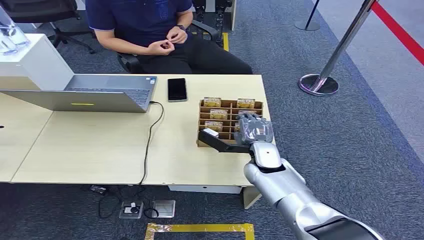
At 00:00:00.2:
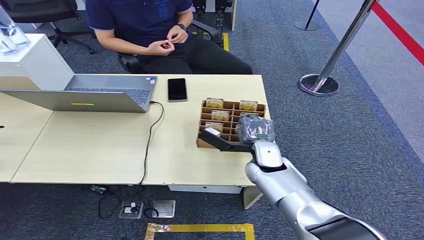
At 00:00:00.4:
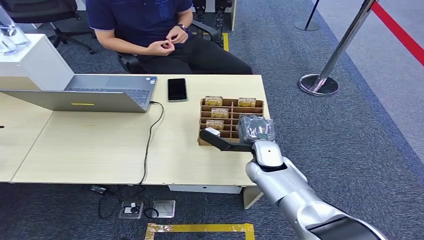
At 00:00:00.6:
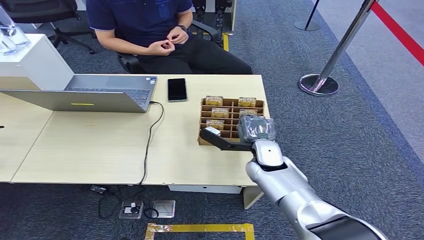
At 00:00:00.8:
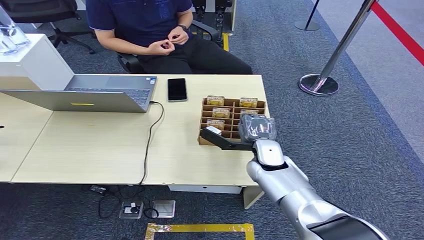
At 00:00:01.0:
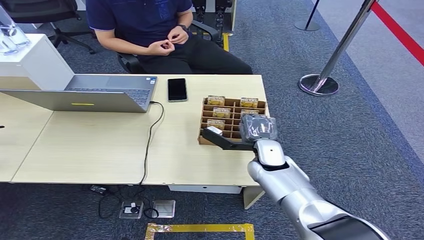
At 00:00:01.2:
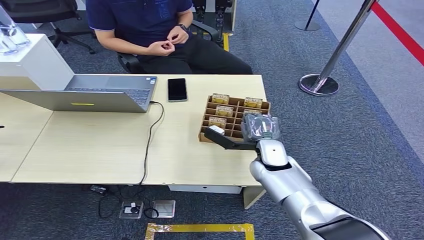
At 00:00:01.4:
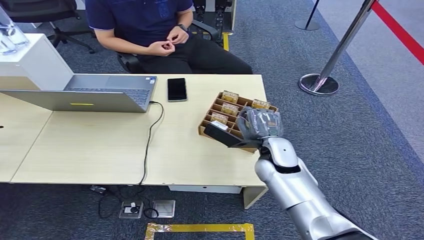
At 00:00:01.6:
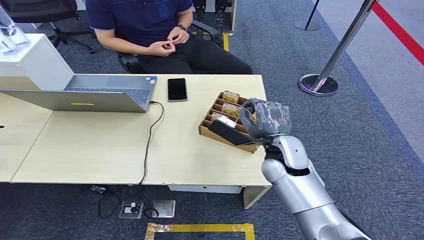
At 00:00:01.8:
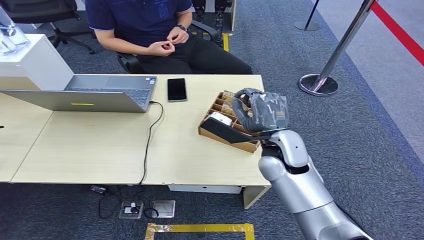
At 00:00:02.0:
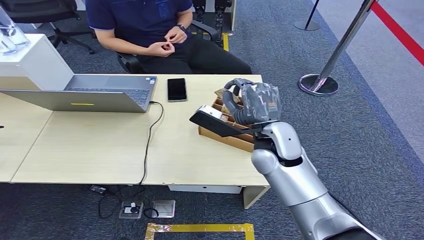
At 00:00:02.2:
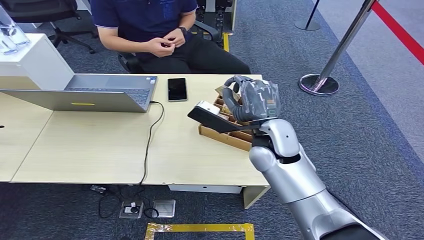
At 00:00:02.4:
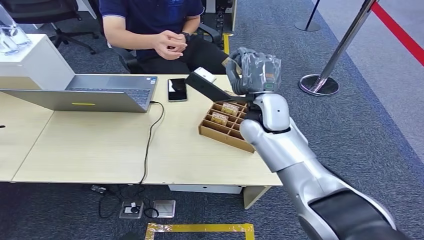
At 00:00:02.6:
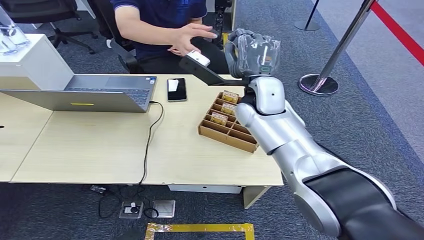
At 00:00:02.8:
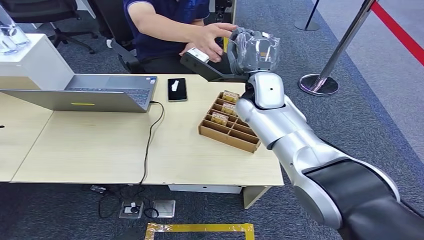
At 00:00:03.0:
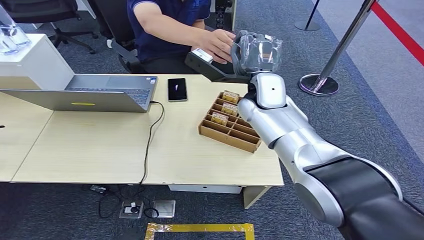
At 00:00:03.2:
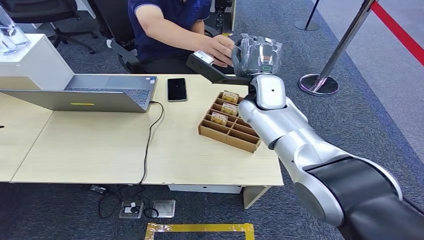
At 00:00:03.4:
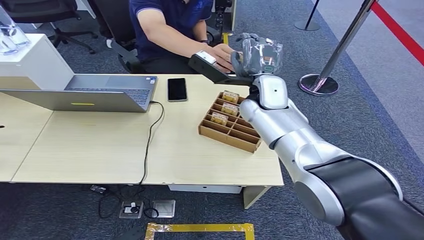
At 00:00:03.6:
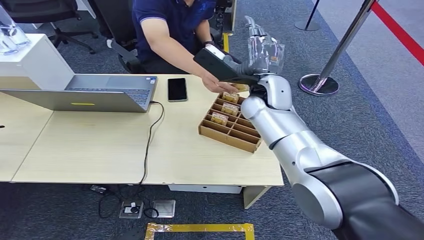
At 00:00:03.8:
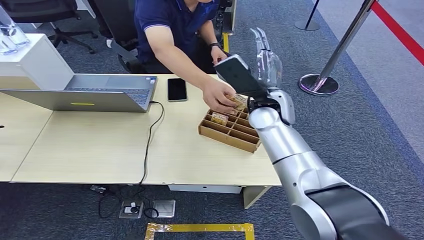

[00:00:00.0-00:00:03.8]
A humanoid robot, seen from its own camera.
Step, 00:00:00.0 to 00:00:02.2: Pick up the key card from the card box.
Step, 00:00:02.4 to 00:00:03.8: Hand the key card to the target.

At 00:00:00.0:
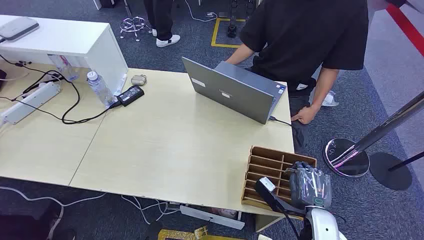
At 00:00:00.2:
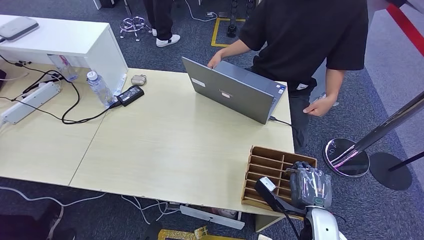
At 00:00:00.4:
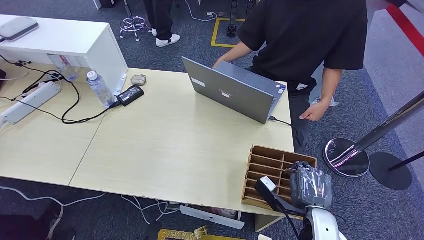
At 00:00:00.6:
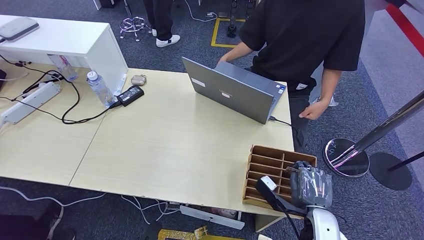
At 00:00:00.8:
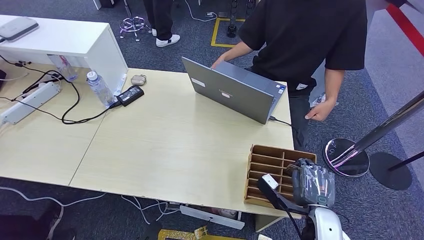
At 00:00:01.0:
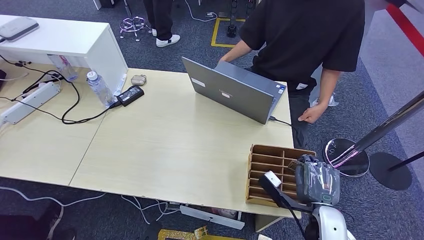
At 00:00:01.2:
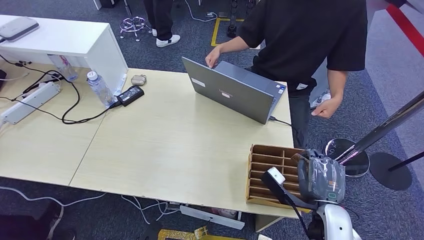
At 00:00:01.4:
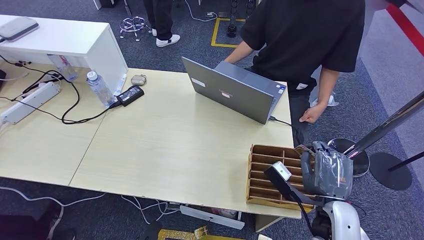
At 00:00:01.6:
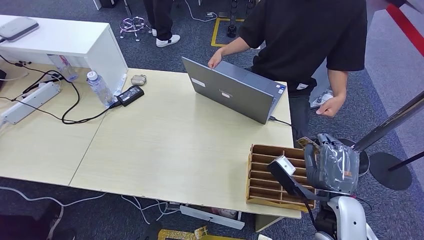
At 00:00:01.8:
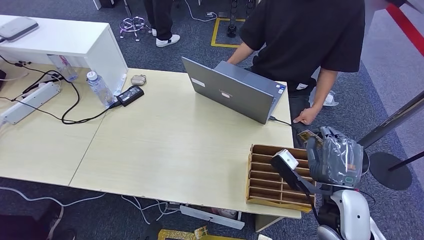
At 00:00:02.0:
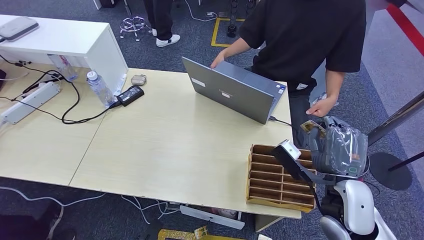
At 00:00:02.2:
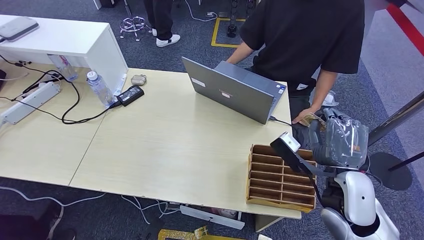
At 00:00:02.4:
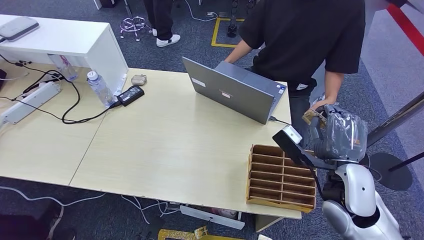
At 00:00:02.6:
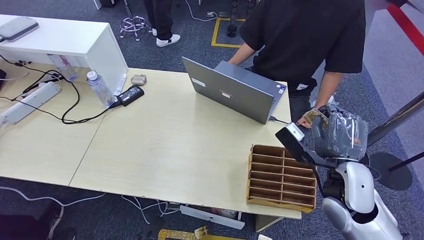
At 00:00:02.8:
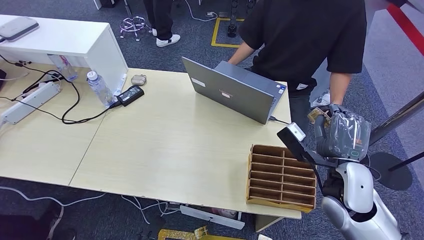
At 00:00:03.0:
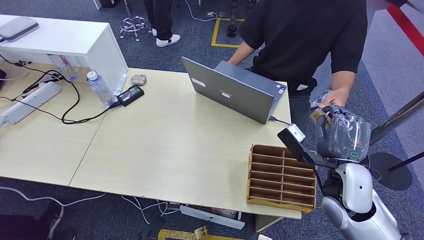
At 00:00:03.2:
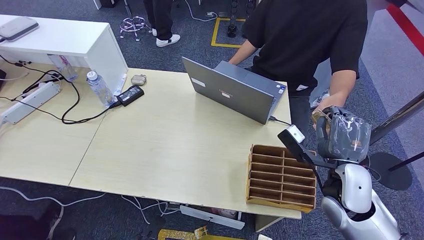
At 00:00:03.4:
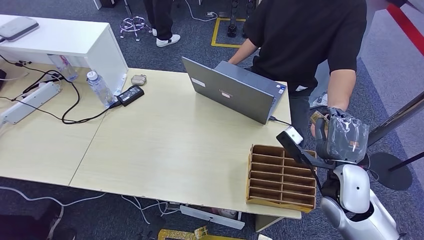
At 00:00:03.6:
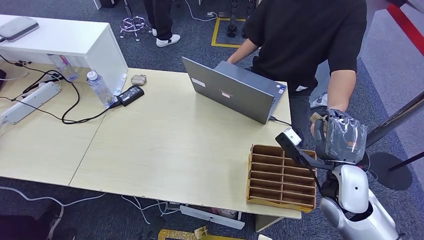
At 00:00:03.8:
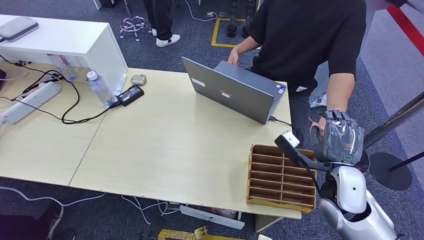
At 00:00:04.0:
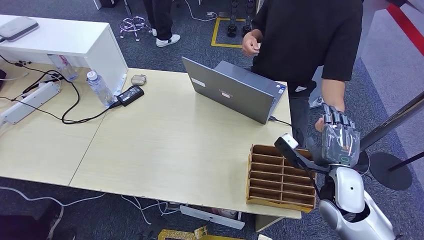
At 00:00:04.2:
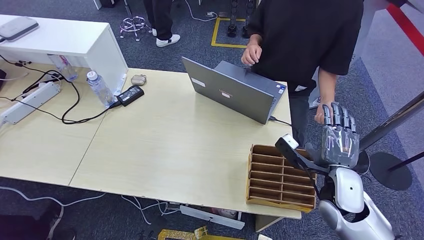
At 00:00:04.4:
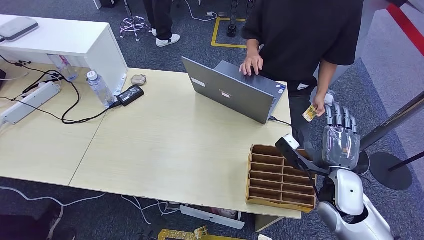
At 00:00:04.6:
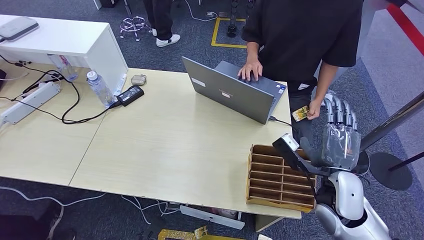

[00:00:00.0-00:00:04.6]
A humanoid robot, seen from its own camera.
Step, 00:00:00.0 to 00:00:01.8: Pick up the key card from the card box.
Step, 00:00:02.0 to 00:00:04.6: Hand the key card to the target.
00:00:01.6 to 00:00:03.0: The right hand moves forward, approximately 5 cm.
00:00:03.0 to 00:00:04.6: The hands move only a little.
